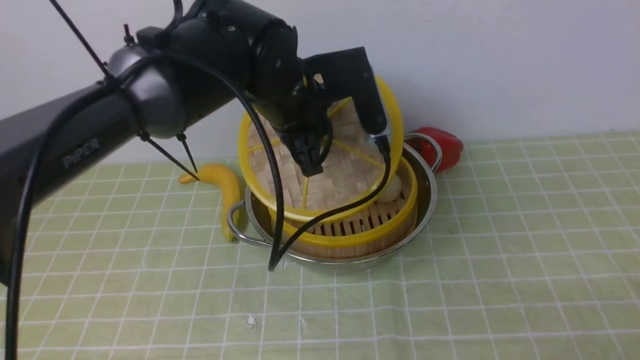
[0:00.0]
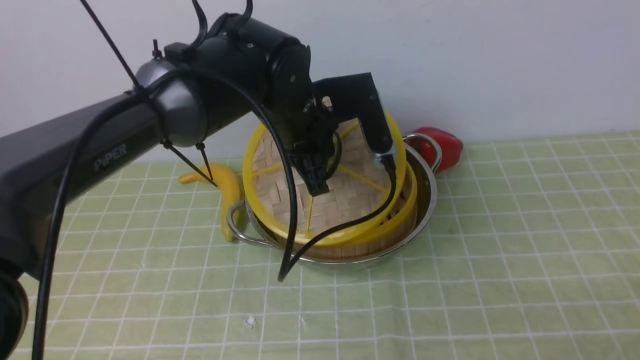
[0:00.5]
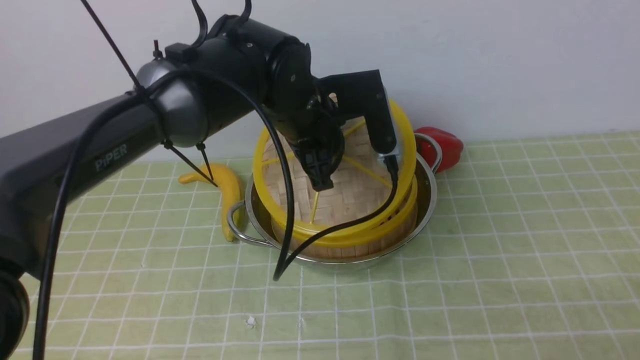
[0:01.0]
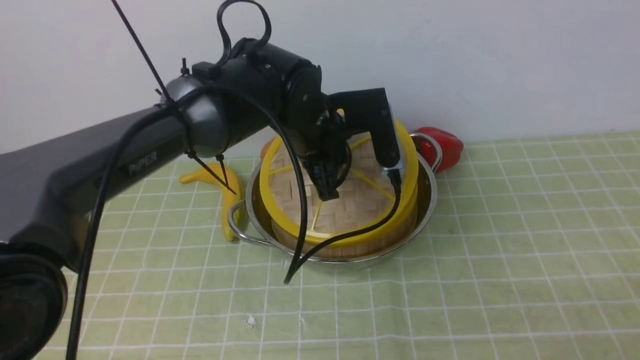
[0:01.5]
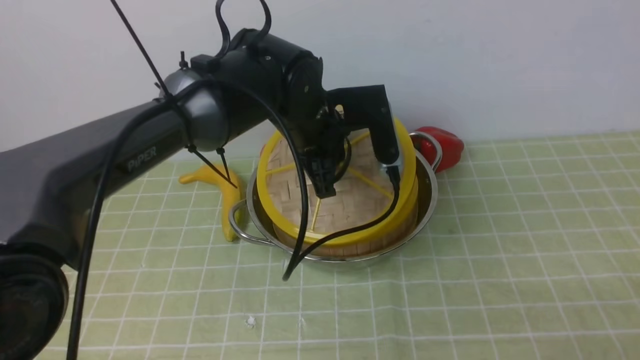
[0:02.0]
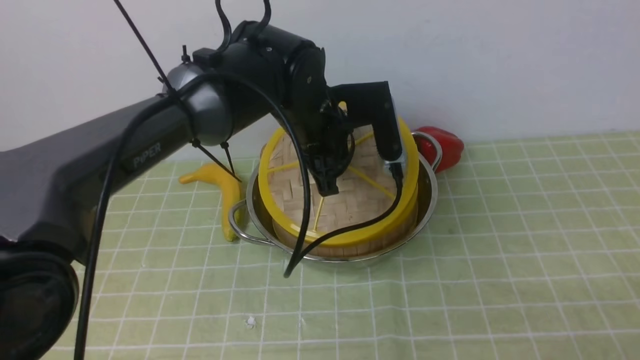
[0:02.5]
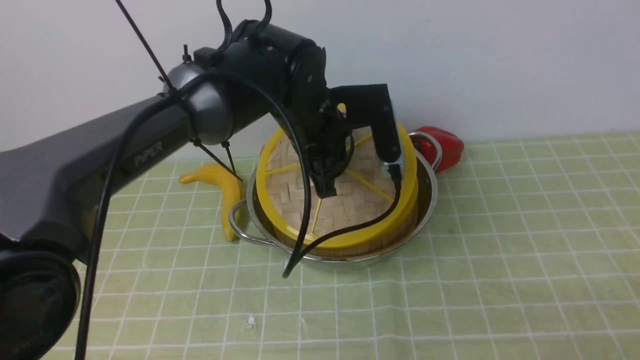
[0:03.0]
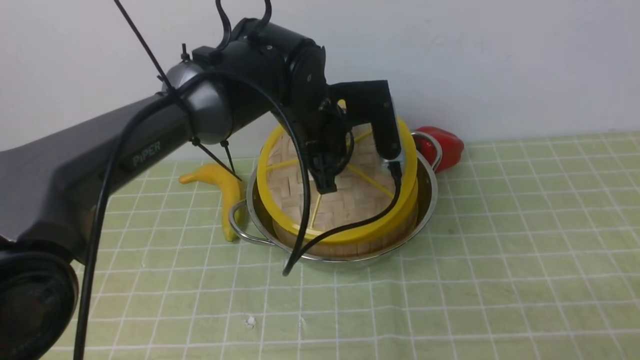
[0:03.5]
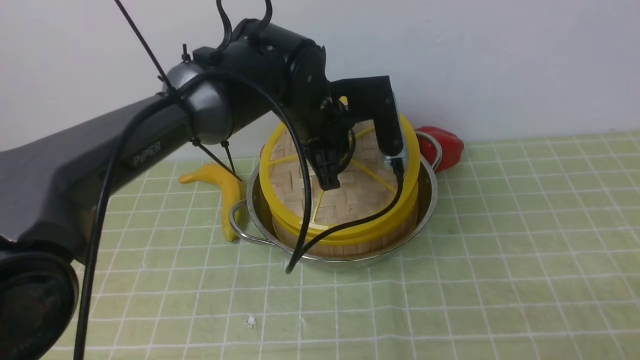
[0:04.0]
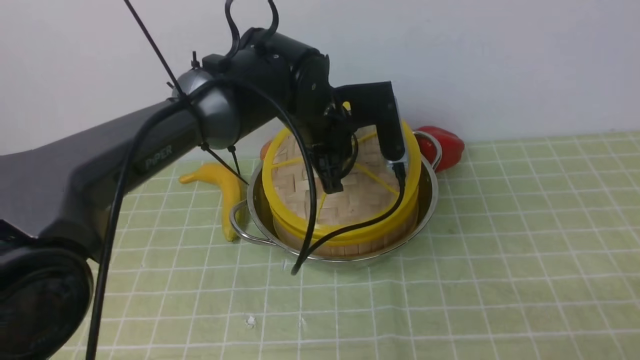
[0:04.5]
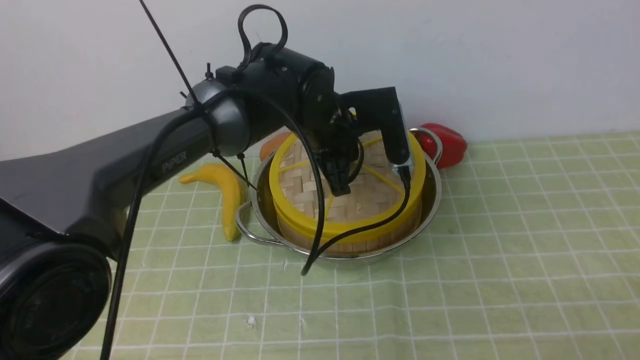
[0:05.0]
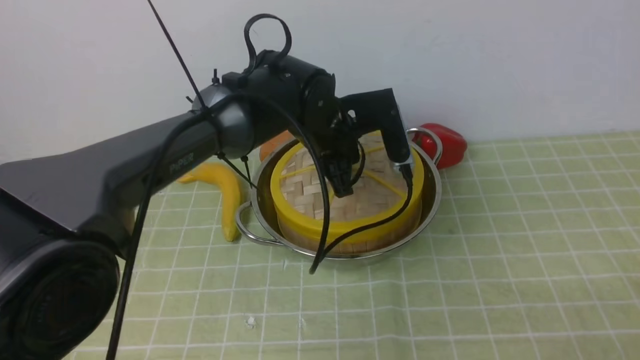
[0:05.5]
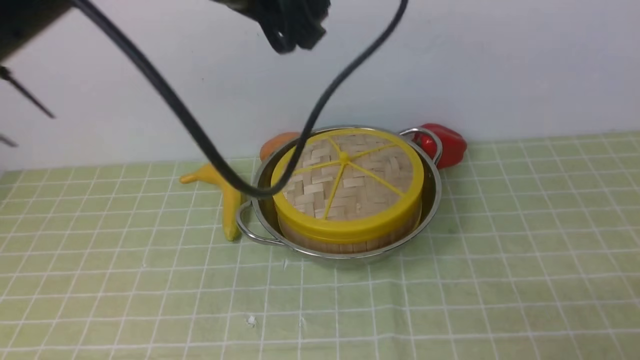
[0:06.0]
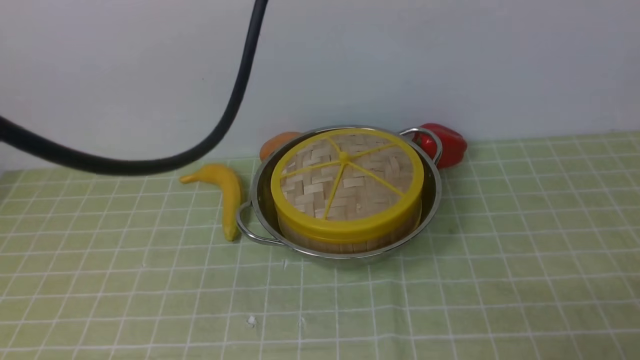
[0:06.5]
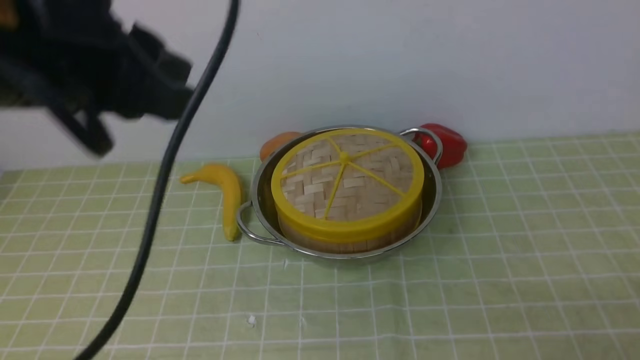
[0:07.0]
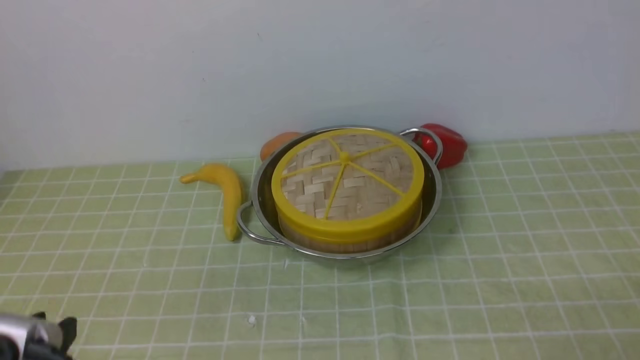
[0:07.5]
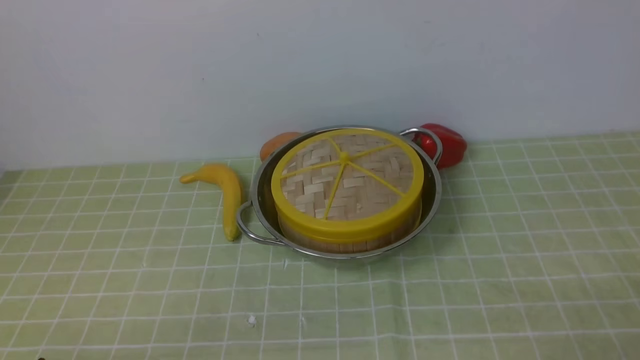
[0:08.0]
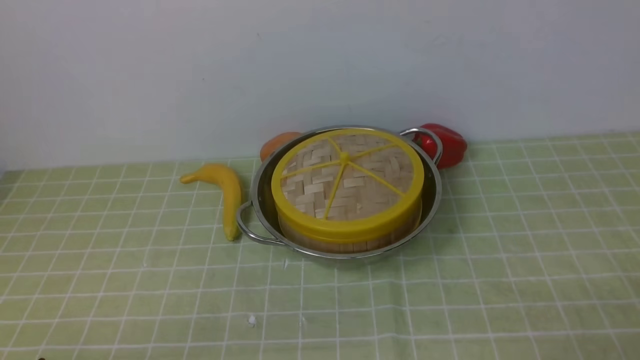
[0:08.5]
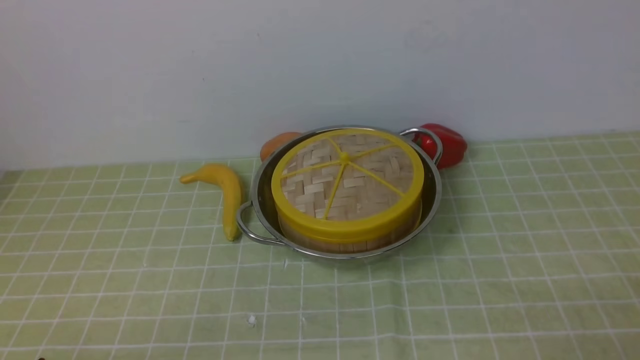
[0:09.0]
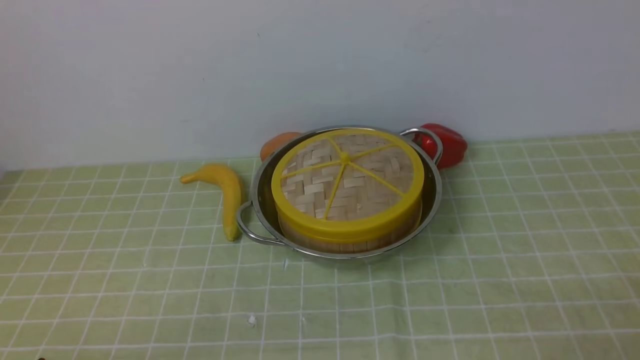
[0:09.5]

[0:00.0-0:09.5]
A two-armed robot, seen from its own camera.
Task of the whole recording: place the steamer in the pot on the green tablecloth, and put the lid on the steamer.
Step, 0:00.0 to 0:05.5: use the left arm to place the steamer lid on the steamer.
0:02.0 to 0:04.0: Both grippers stay put.
0:04.0 to 0:05.5: The left gripper opens up.
0:05.5 to 0:07.5: The left gripper goes about 40 cm backward and to the left, and opens, then closes once more.
0:07.5 to 0:09.5: The left gripper travels downward by roughly 5 cm.
